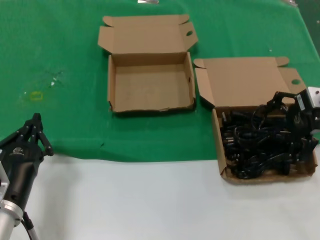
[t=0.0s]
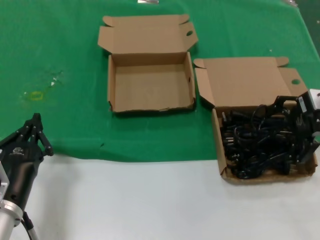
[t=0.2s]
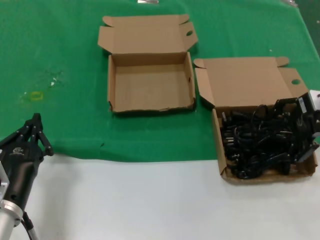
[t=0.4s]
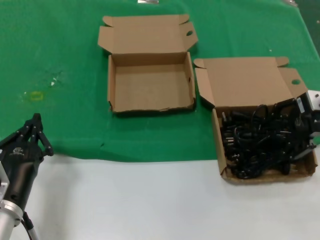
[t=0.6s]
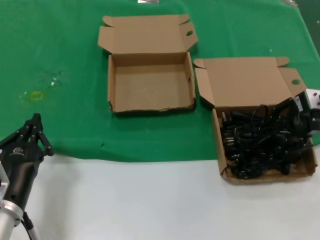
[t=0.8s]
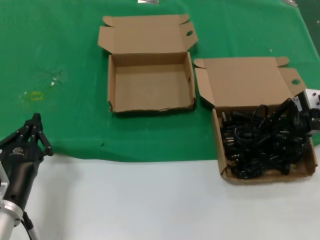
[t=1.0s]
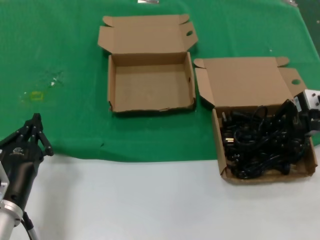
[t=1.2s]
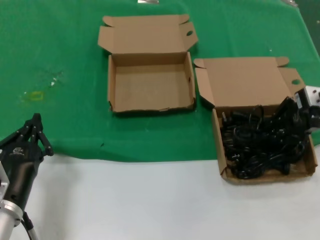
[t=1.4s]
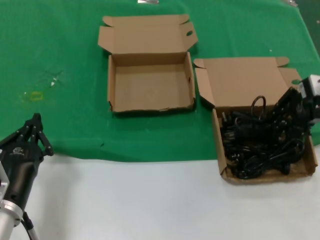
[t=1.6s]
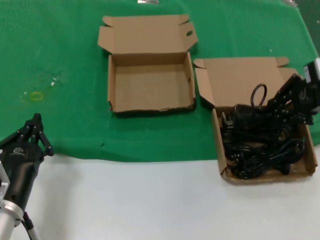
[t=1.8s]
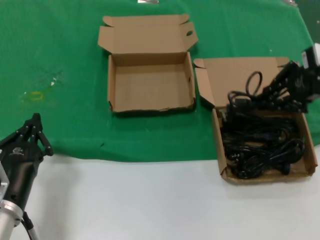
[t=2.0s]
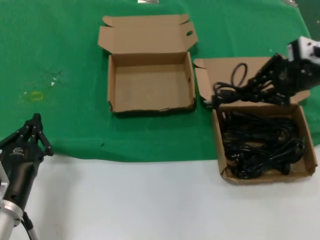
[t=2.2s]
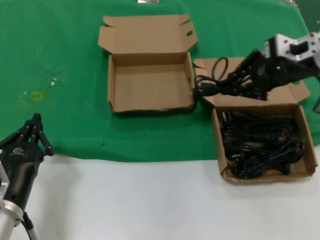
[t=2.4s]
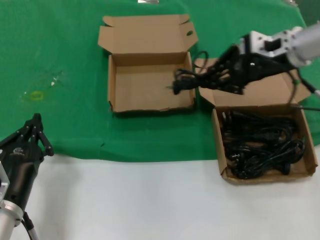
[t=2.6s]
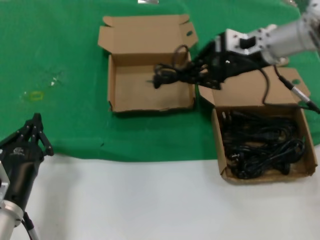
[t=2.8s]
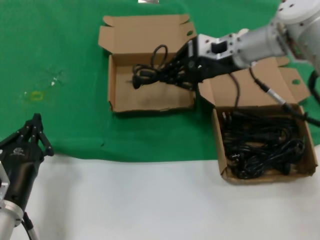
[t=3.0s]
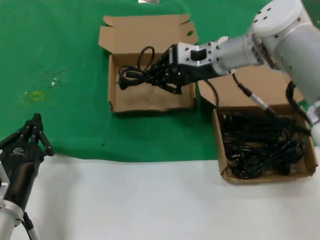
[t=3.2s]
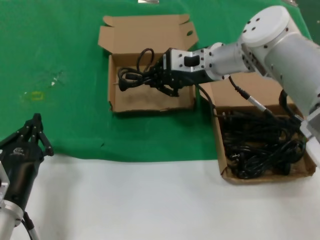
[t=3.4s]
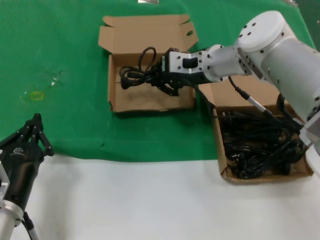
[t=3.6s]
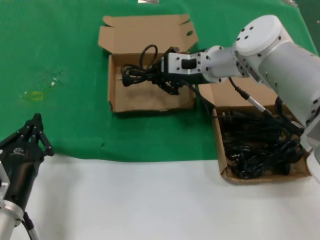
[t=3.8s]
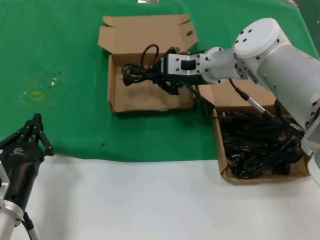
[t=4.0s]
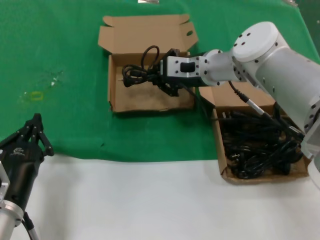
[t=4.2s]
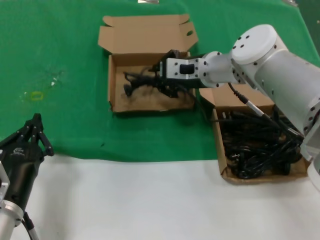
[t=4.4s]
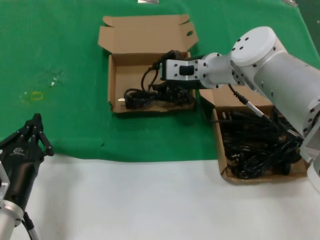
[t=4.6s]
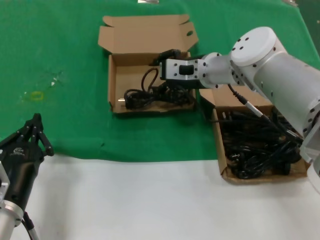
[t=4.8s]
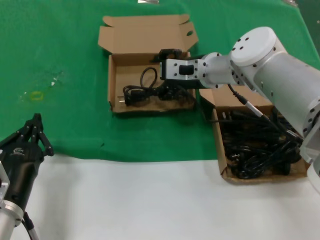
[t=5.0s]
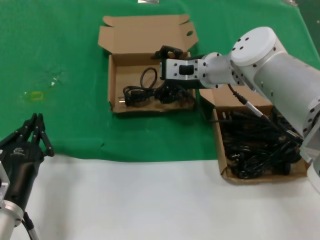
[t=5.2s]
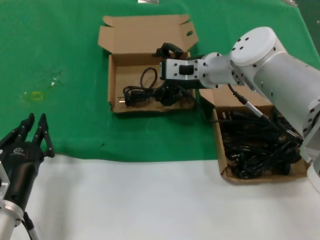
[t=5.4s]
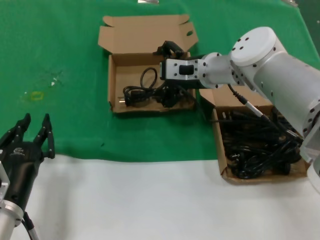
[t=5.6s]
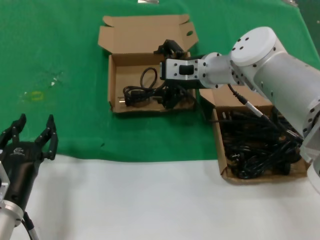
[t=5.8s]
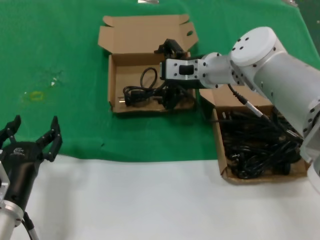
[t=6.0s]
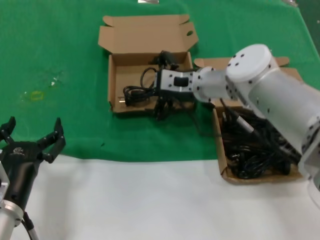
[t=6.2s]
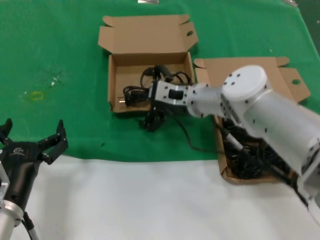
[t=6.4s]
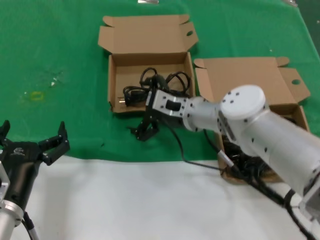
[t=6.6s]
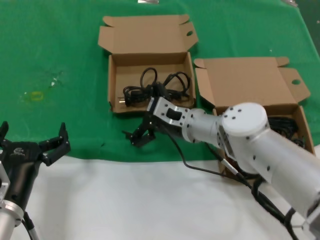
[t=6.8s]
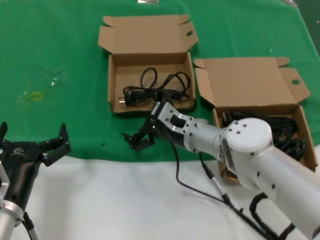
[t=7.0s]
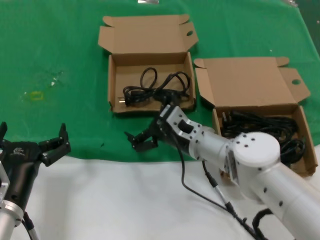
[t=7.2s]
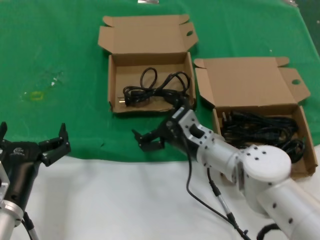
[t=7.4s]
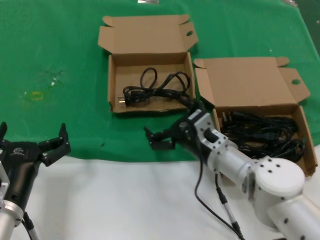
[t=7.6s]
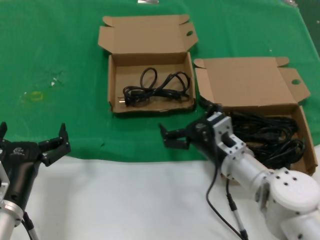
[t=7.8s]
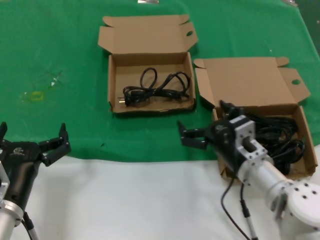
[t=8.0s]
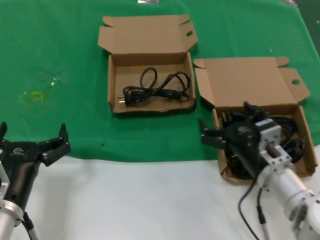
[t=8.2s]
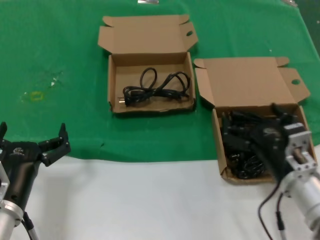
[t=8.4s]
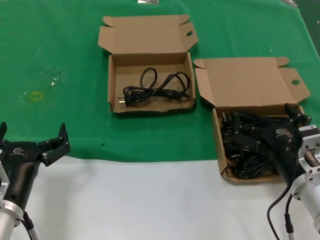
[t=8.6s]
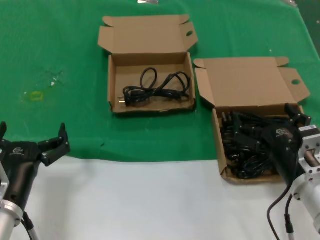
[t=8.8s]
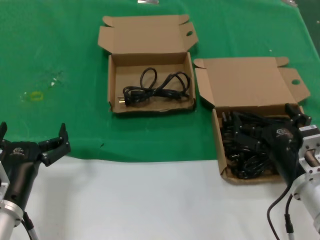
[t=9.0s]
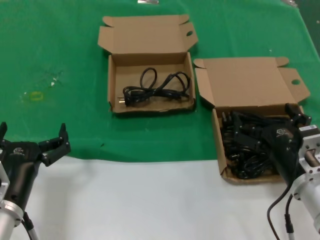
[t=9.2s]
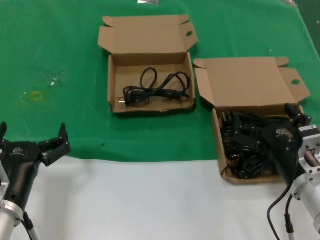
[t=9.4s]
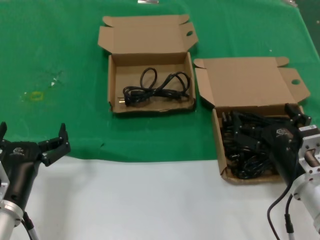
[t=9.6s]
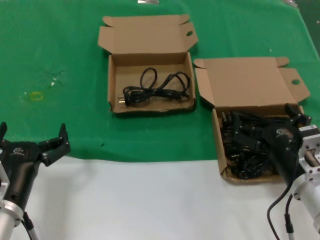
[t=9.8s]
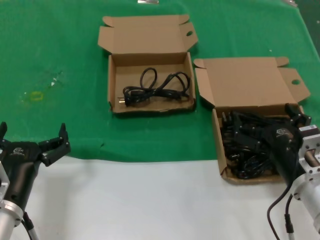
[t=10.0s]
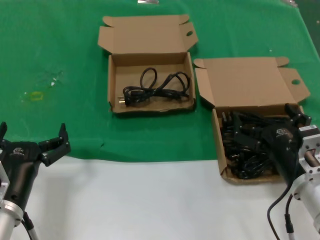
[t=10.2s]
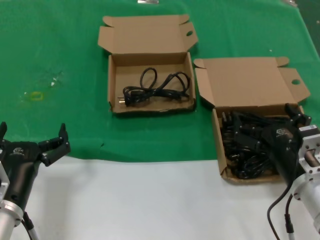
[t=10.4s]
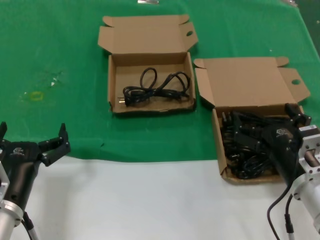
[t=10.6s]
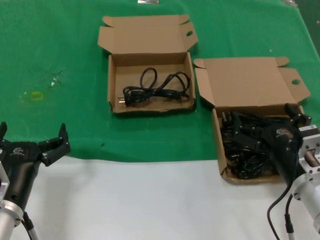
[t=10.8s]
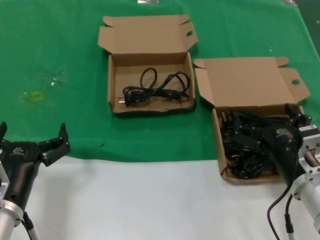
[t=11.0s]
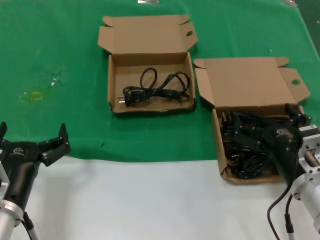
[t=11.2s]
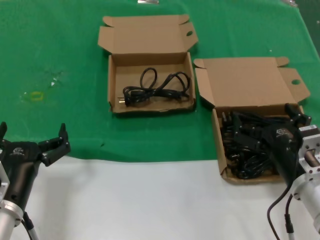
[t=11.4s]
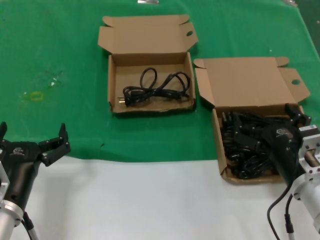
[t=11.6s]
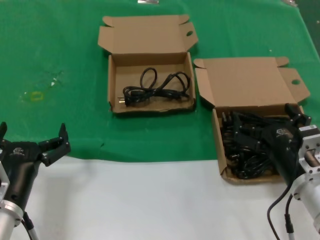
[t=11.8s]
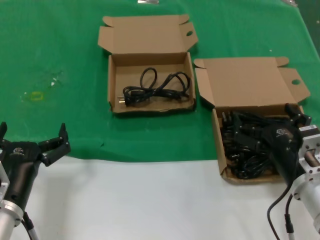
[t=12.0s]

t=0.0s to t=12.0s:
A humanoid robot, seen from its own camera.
Task of the whole recording: take the parts from the box containing them and put them into an empty box.
Step, t=1.4s to t=4.6s: Place the data cable in the another box.
t=0.0s to t=1.6s: There are only small adjustments of the hands.
t=1.6s to t=3.0s: The right hand goes approximately 20 cm to the left and forward.
t=3.0s to t=4.4s: The right hand heads to the left and downward, covering approximately 10 cm.
t=4.4s to t=6.0s: Neither hand changes place.
t=6.0s to t=7.6s: The right hand travels downward and backward by roughly 20 cm.
t=7.6s to t=9.0s: The right hand travels to the right and backward by about 15 cm.
t=9.0s to t=12.0s: Neither hand changes place.

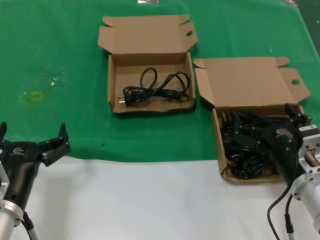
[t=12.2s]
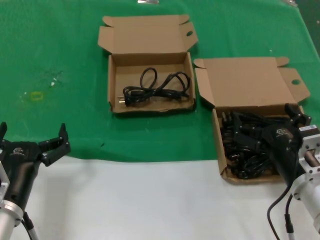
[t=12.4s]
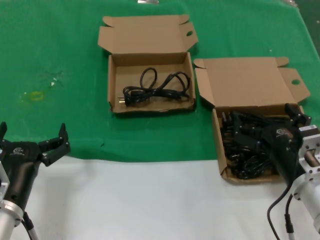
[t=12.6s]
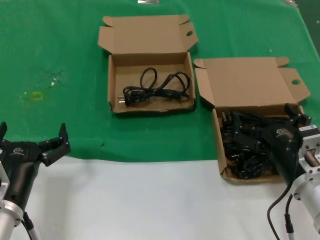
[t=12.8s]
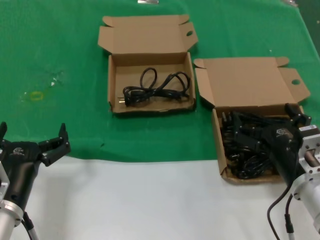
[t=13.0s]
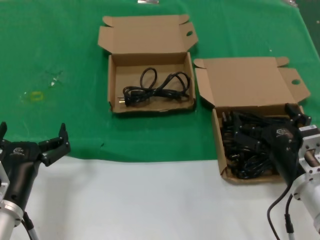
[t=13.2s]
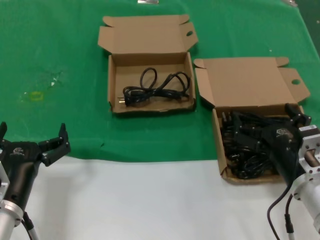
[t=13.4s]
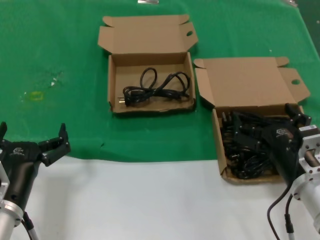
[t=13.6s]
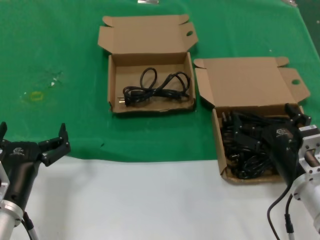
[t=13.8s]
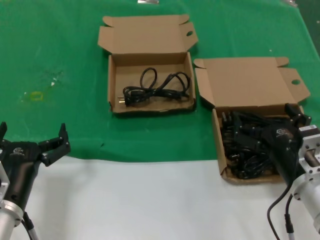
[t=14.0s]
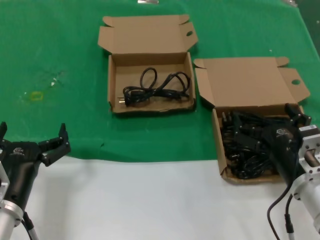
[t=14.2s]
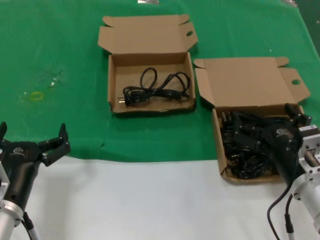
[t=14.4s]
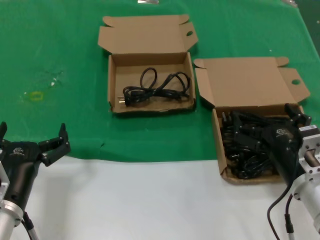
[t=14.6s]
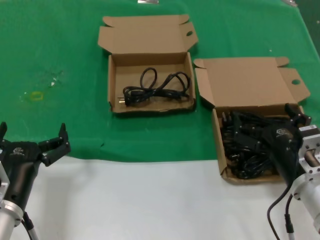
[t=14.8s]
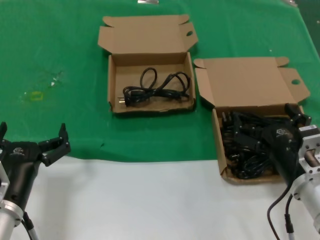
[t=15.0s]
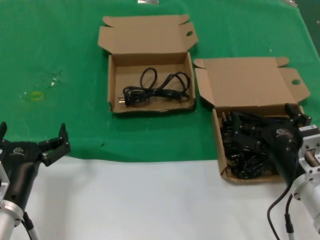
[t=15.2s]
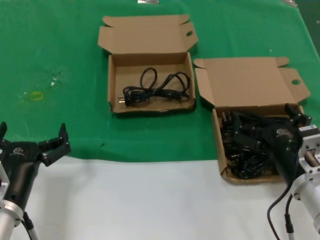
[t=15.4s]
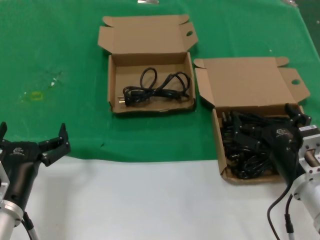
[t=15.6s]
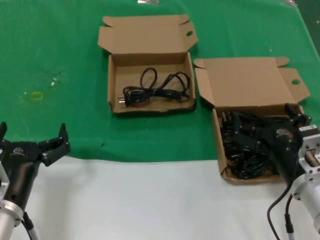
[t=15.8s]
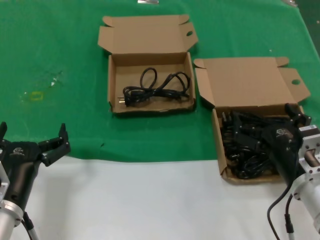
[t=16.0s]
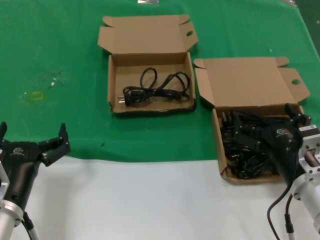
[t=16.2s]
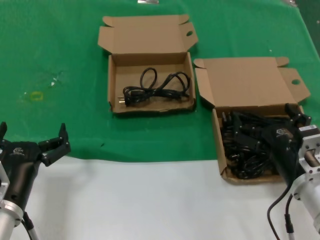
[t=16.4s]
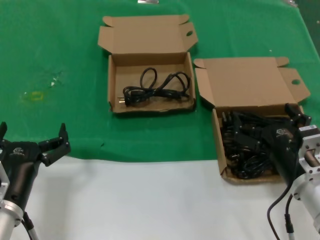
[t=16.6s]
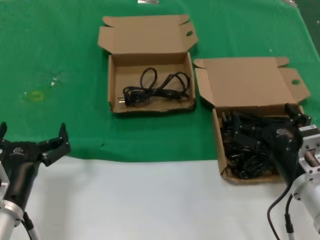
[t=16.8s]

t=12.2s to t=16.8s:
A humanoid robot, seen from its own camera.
Task of the whole recording: take the parts from the box containing them and put them into an empty box.
t=12.2s to t=16.8s: Neither hand changes place.
